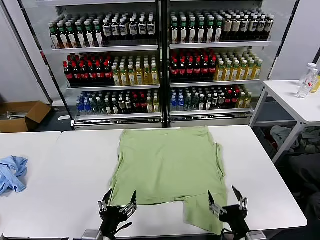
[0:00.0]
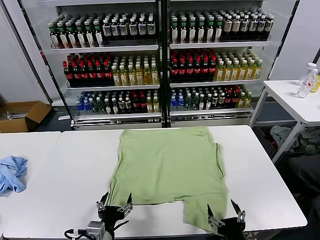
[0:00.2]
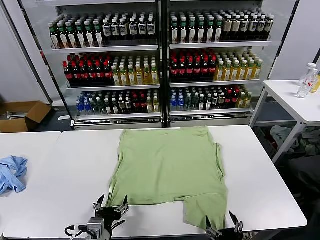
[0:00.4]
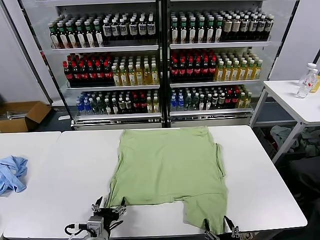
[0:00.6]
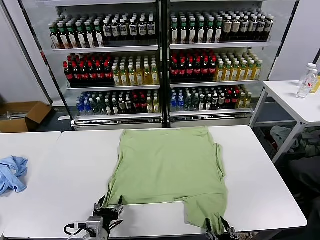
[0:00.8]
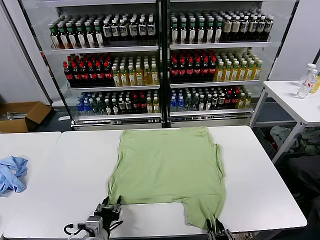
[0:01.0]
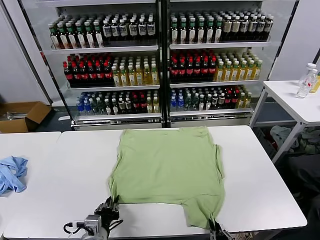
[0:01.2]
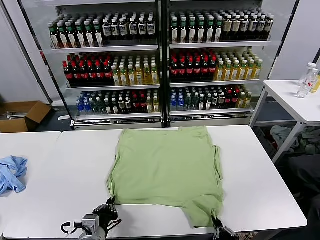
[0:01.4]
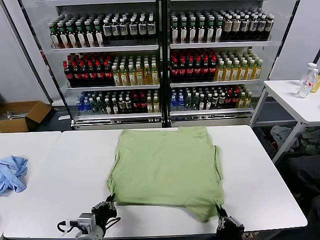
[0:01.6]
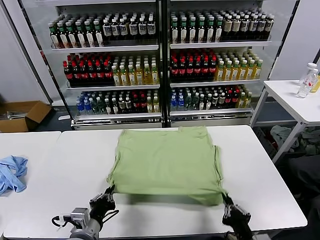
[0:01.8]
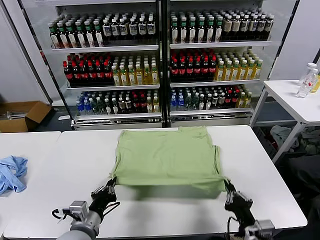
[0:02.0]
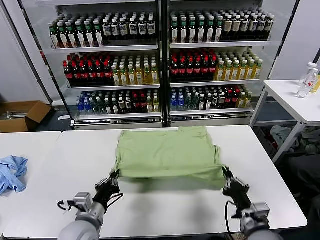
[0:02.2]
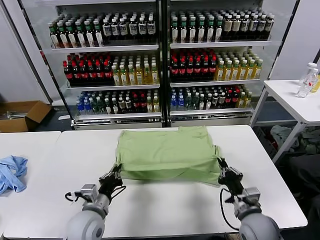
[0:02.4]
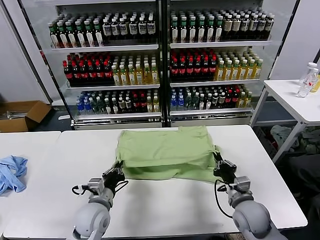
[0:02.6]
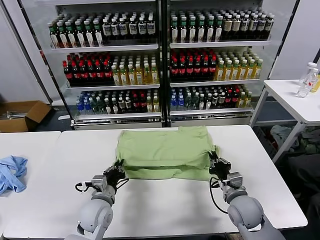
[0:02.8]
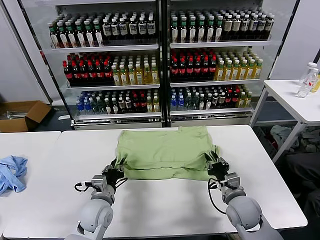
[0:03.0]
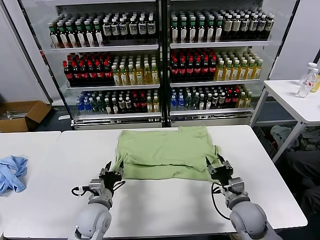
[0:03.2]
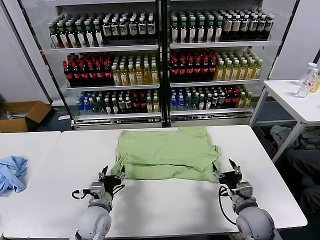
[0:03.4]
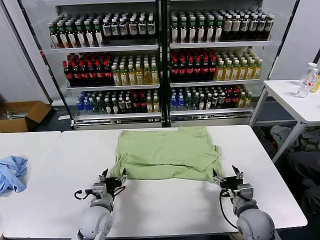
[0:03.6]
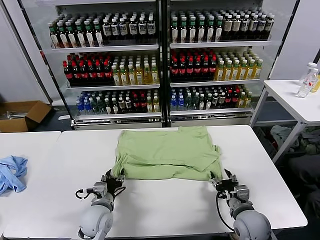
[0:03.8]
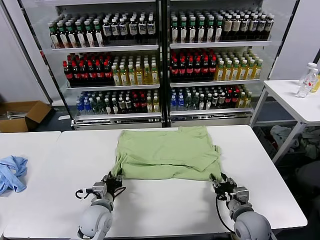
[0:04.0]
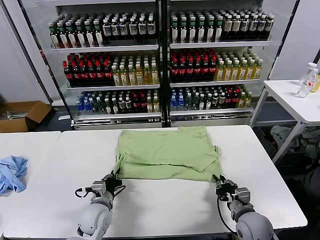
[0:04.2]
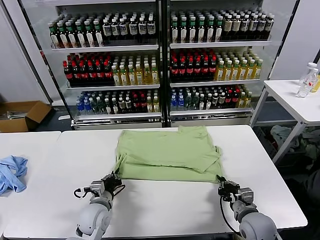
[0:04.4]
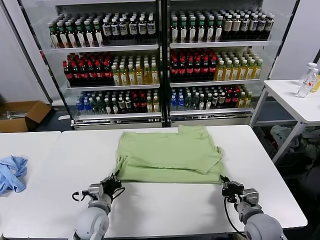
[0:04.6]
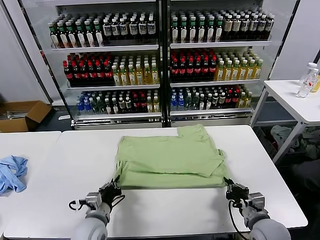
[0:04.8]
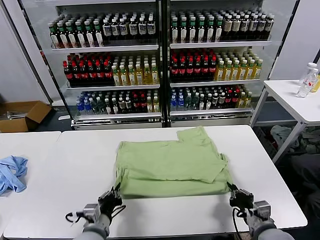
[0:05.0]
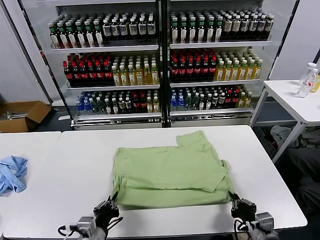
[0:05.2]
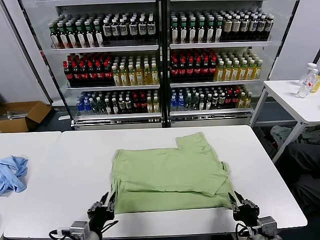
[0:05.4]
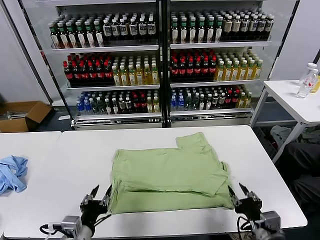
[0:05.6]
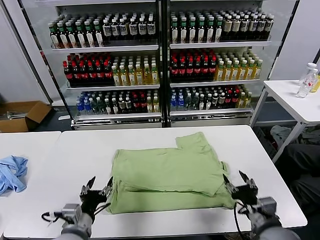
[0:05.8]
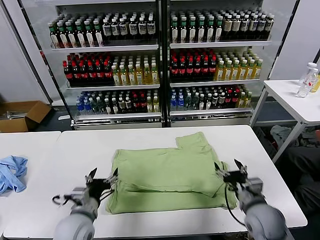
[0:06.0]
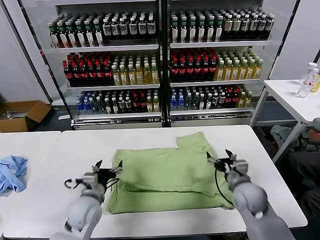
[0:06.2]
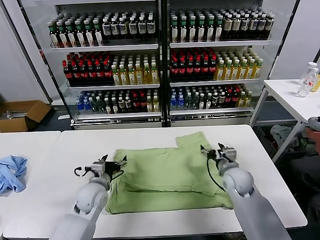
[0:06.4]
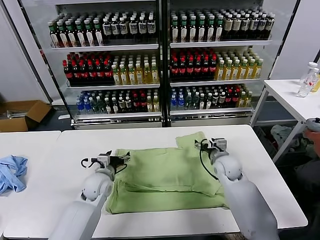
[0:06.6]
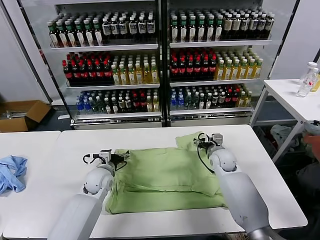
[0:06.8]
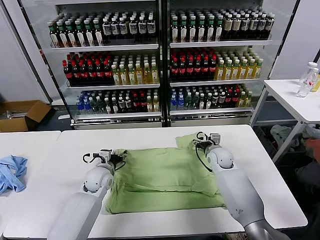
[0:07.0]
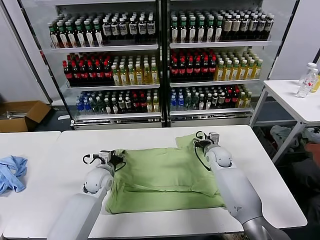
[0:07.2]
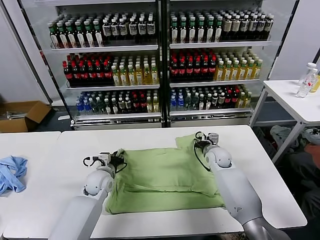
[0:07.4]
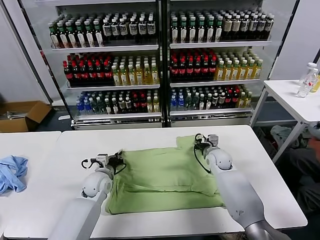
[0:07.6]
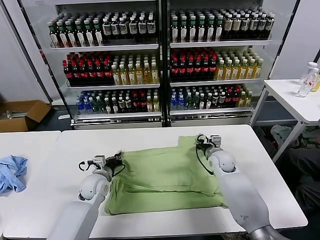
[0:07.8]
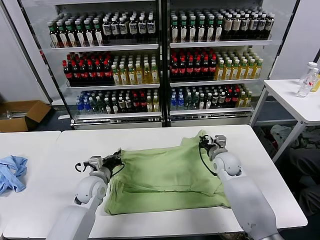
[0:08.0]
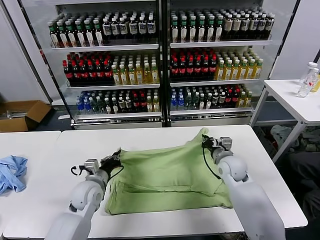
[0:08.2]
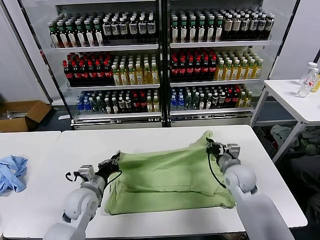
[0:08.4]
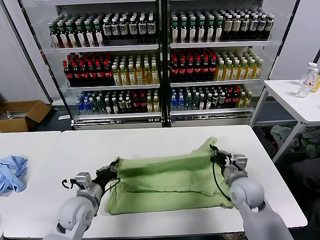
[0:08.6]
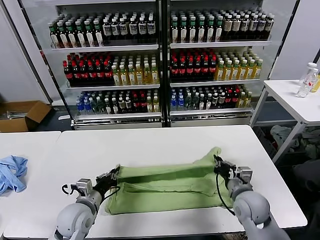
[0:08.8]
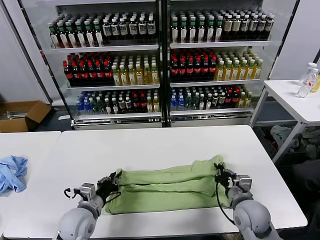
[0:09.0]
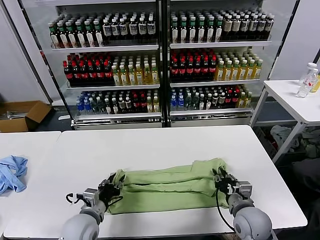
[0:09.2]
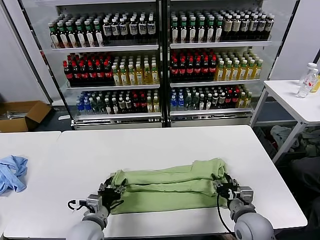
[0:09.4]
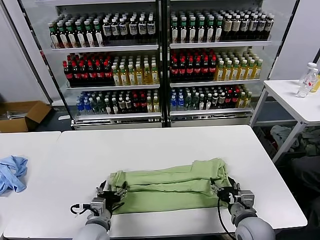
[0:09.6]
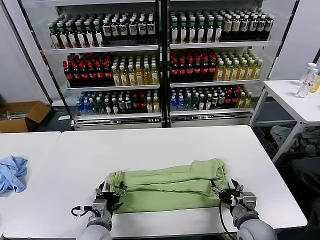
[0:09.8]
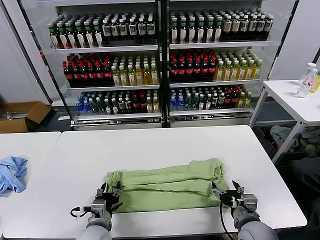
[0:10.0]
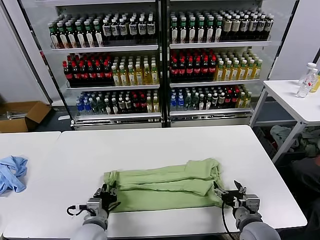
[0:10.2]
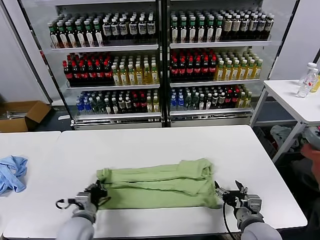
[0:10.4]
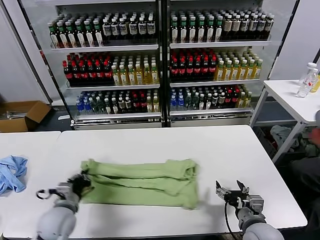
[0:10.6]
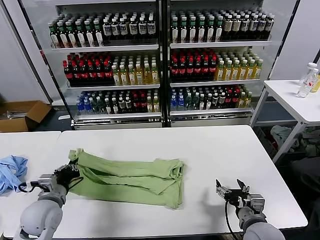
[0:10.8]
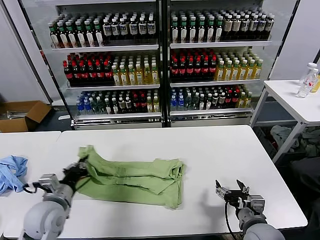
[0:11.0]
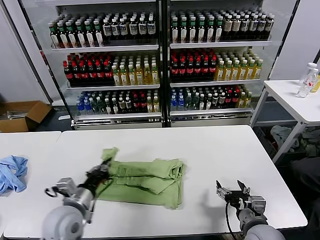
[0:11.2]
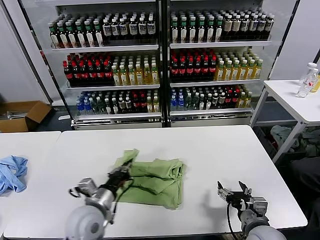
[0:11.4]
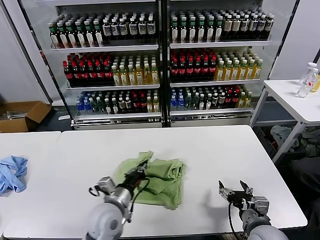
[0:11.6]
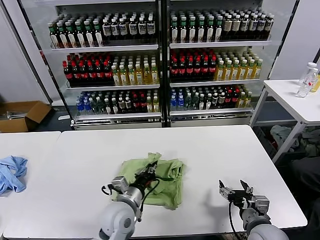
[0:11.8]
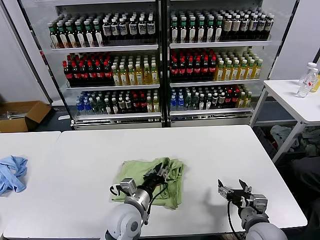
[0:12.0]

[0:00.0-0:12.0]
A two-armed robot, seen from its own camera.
Task of the whole recording: fold and organize the clothes.
Step, 0:00.0 to 0:01.4: use both grippers simultaneously to clamp the lower edge of the clothing fabric.
Step, 0:01.6 to 0:03.2: use both grippers to drag the lower edge of the fabric forward and fold it over the upper edge.
Step, 0:03.4 to 0:05.4: Drag the clothes downward with both gripper.
Step, 0:05.6 to 0:07.6: use both grippers simultaneously to clamp the upper edge of the clothing fabric.
Step, 0:07.8 to 0:09.2: use both grippers to drag the upper edge of the fabric backward and fold it over the lower edge.
Step, 0:09.4 to 0:10.4: use the left gripper to clamp the left edge of the fabric.
Step, 0:10.6 to 0:12.0: use the left gripper to drag the left edge of the fabric to the left and folds it over the right edge.
0:01.6 to 0:03.0: The grippers both shift forward by roughly 15 cm. The left gripper opens its fingers, while the right gripper opens its fingers.
0:03.0 to 0:04.4: The left gripper closes up, while the right gripper changes place by some 5 cm, and closes up.
0:04.4 to 0:06.0: The grippers both shift upward by approximately 5 cm. The right gripper reaches about 10 cm backward, then returns, and opens up; the left gripper moves roughly 15 cm backward and comes back, and opens its fingers.
0:06.0 to 0:07.6: The two grippers go roughly 20 cm forward. The left gripper closes its fingers; the right gripper closes its fingers.
0:07.6 to 0:09.0: The right gripper travels backward by some 25 cm; the left gripper travels backward by about 15 cm.
0:09.0 to 0:10.4: The left gripper opens, then closes again, while the right gripper is displaced backward by approximately 5 cm, and opens up.
0:10.4 to 0:12.0: The left gripper goes roughly 15 cm to the right.

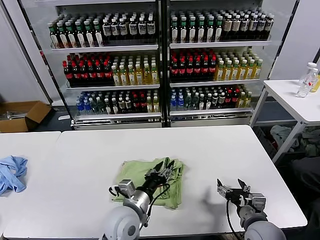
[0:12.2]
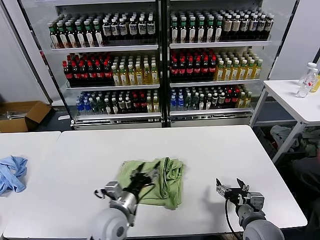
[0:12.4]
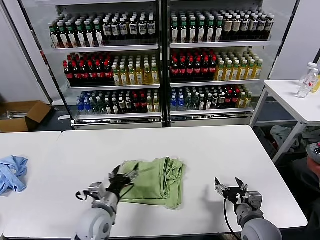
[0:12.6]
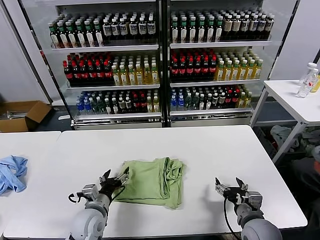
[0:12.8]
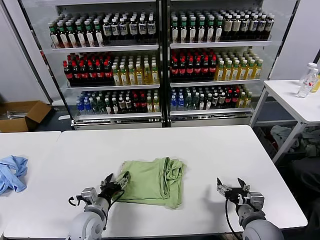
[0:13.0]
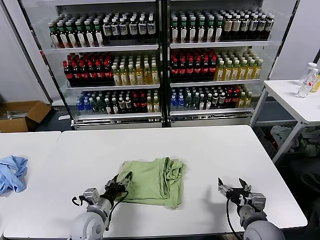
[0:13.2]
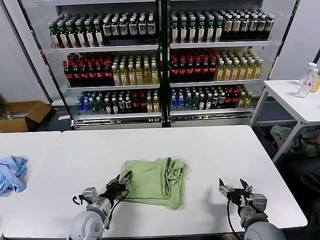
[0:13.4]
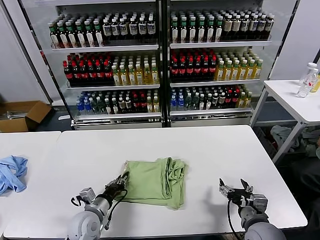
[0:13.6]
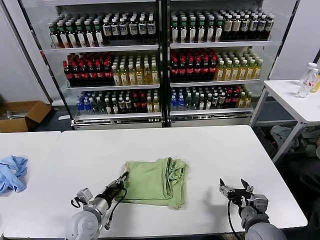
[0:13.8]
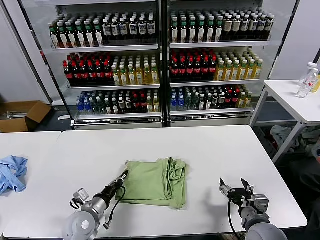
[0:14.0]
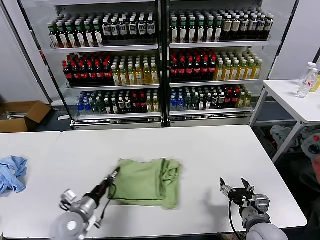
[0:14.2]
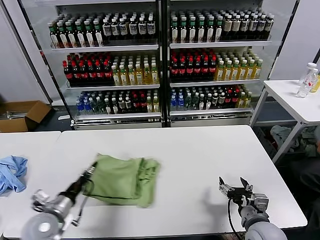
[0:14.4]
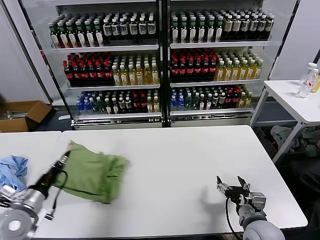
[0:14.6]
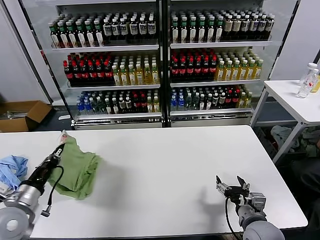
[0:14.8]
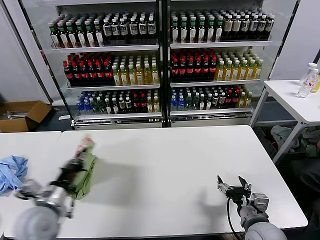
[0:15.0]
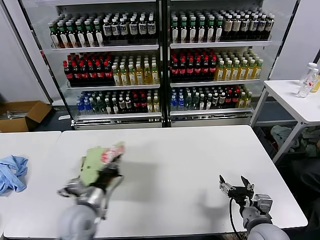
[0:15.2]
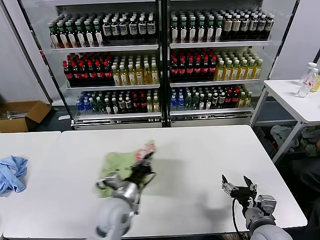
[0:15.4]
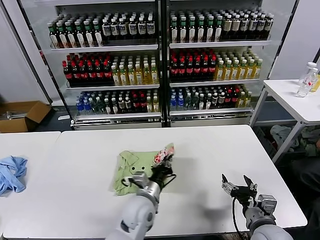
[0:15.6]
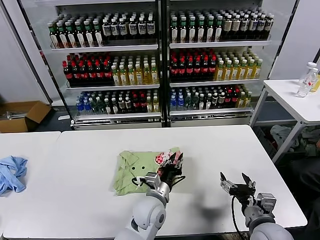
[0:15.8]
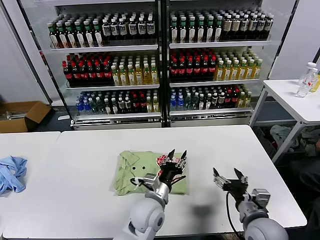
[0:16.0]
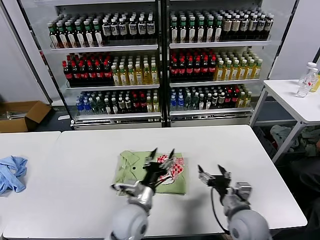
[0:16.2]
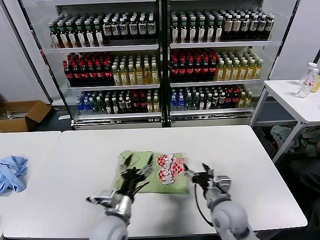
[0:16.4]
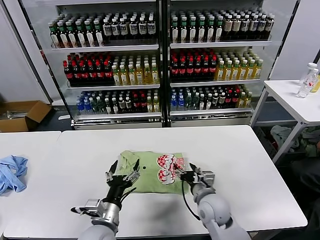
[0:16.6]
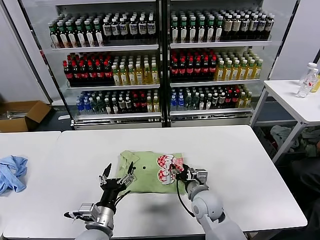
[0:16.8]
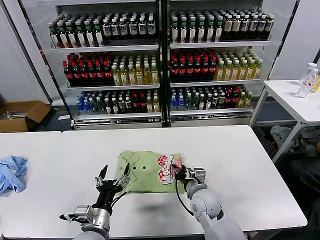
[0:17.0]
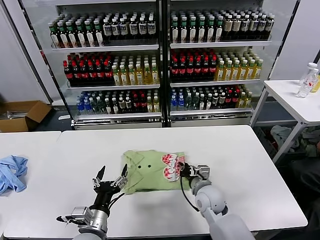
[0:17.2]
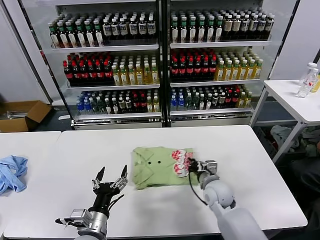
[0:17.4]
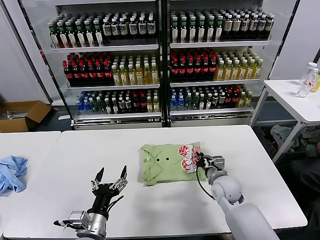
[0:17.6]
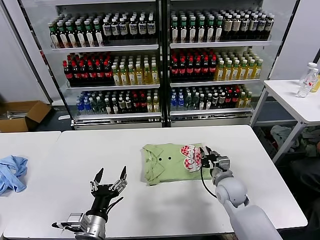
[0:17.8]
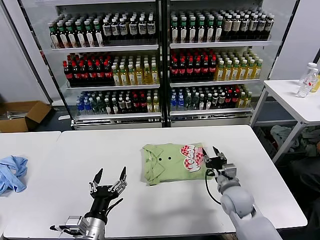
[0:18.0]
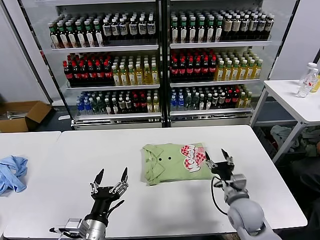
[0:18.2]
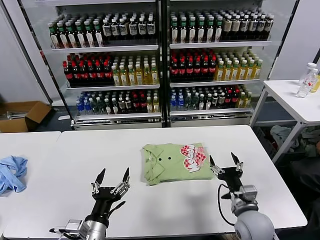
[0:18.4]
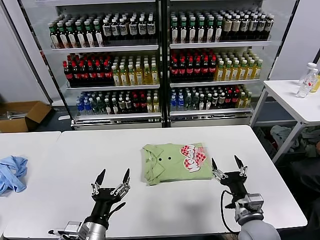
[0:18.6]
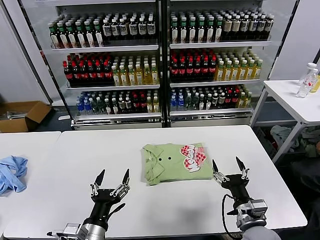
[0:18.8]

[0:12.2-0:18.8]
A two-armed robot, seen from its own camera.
Task of the whole recording: fold and organize the clothes.
Step, 0:12.2 to 0:15.8: Flip the folded clothes over with left gripper.
Step, 0:16.0 to 0:17.8: Drag the clothes to the center of the table.
0:12.2 to 0:13.8: The left gripper travels to the left and downward by about 15 cm, and closes.
0:13.8 to 0:15.4: The left gripper is displaced to the right and upward by about 15 cm.
0:15.4 to 0:17.2: The left gripper heads backward, covering about 10 cm, moves about 10 cm to the right and comes back, and opens. The right gripper is displaced forward and to the left by approximately 20 cm, and closes up.
0:17.2 to 0:18.8: The left gripper heads backward, covering approximately 5 cm, while the right gripper moves backward and to the right, about 15 cm, and opens up.
